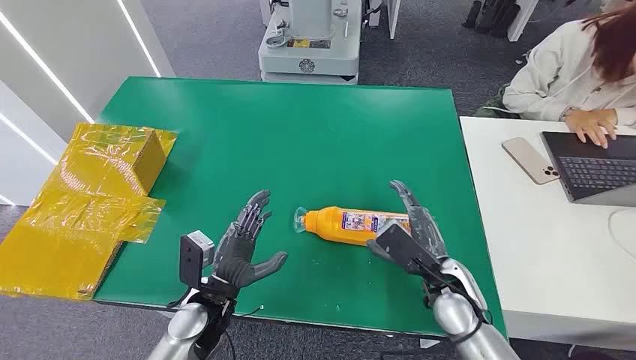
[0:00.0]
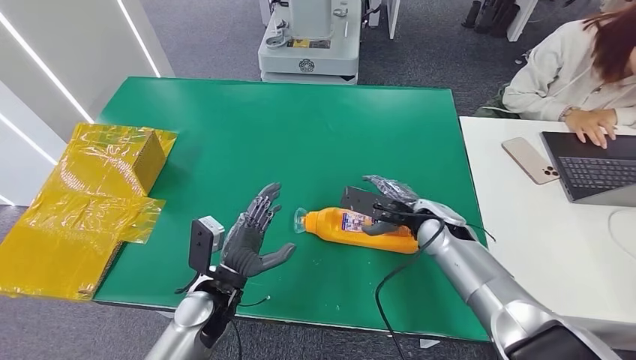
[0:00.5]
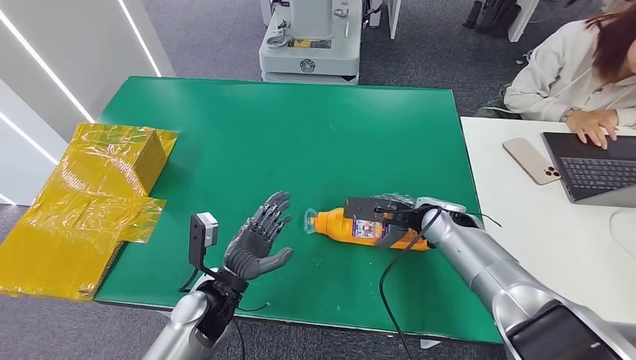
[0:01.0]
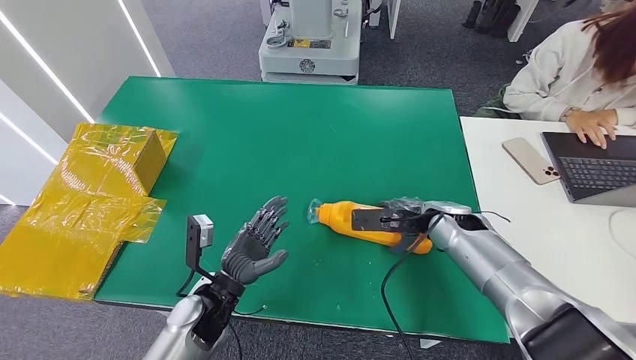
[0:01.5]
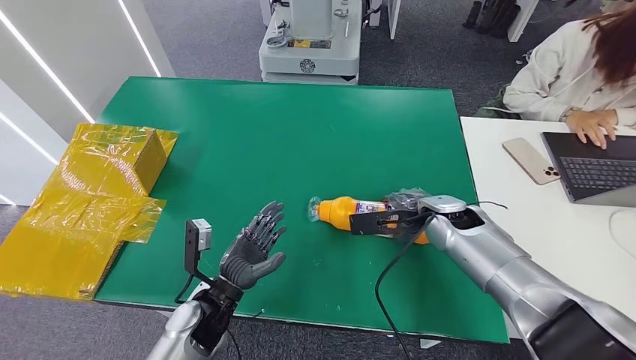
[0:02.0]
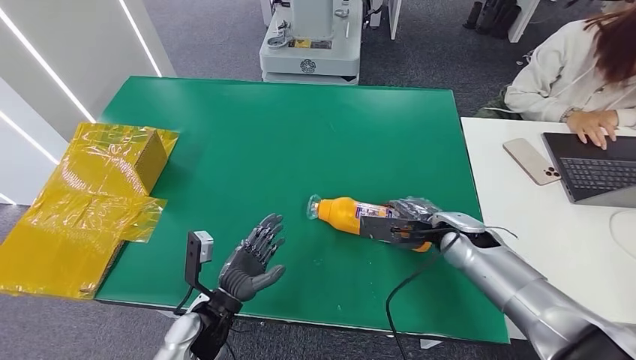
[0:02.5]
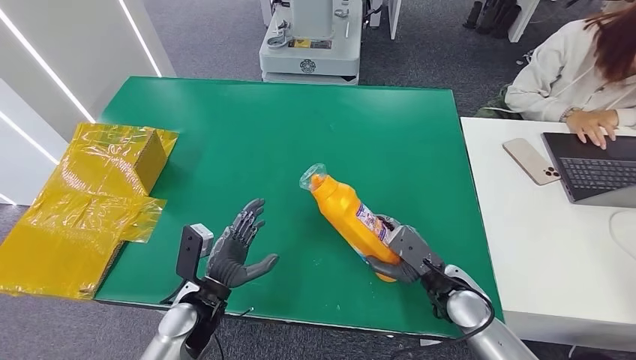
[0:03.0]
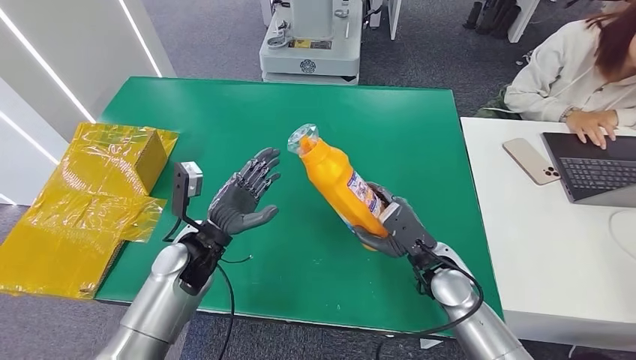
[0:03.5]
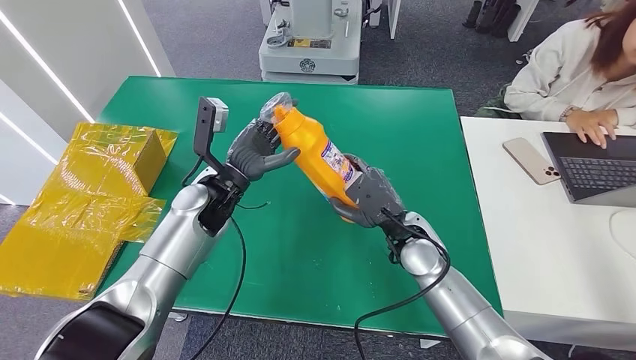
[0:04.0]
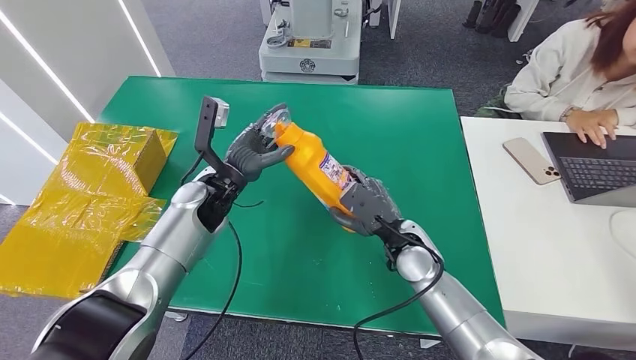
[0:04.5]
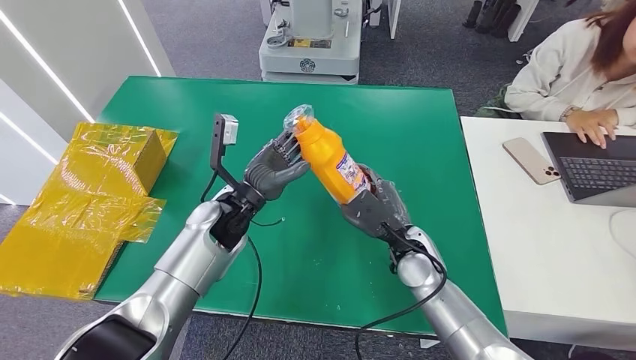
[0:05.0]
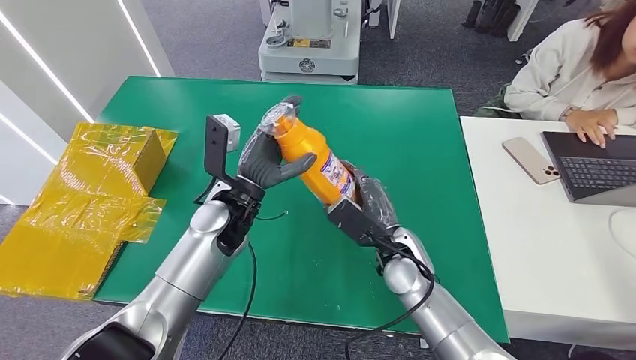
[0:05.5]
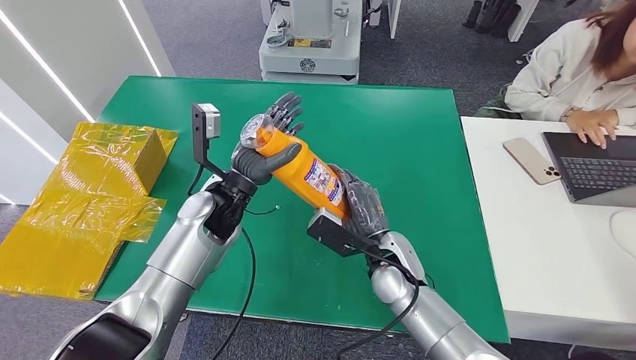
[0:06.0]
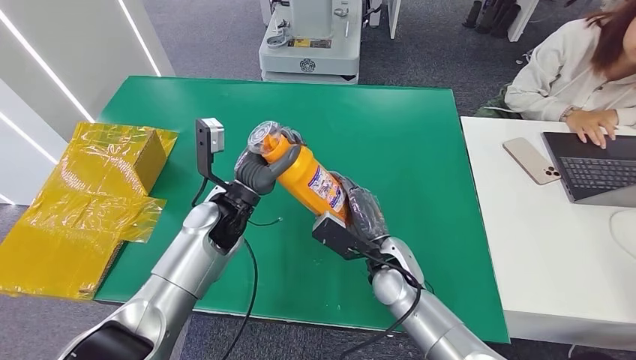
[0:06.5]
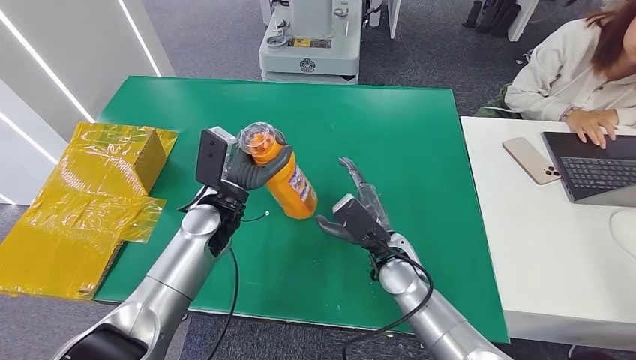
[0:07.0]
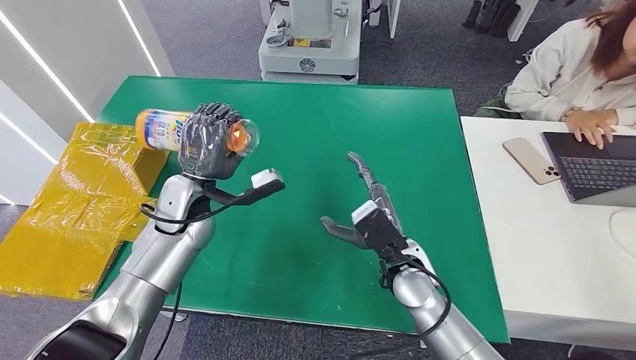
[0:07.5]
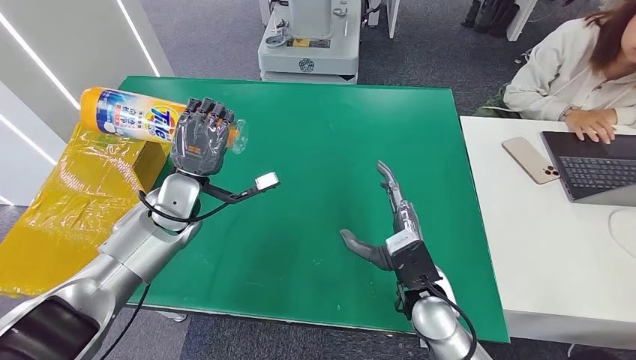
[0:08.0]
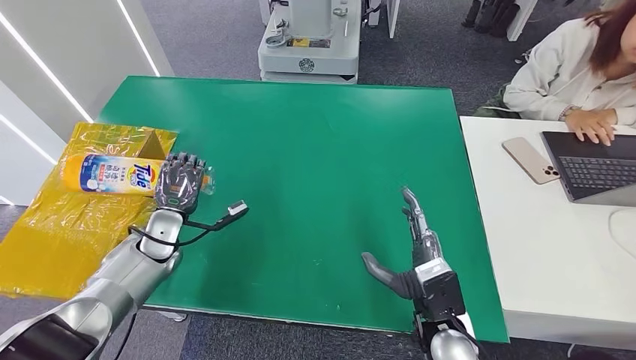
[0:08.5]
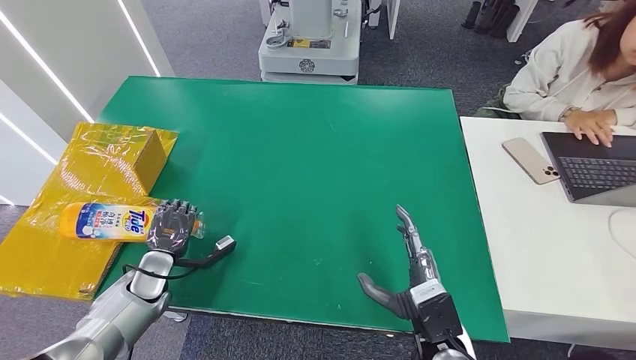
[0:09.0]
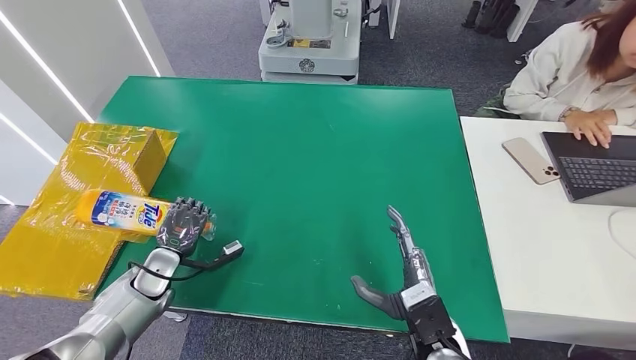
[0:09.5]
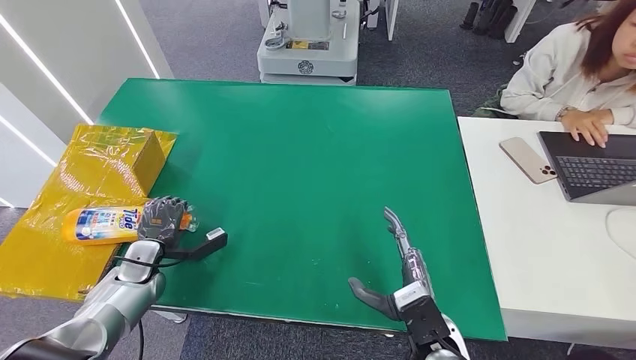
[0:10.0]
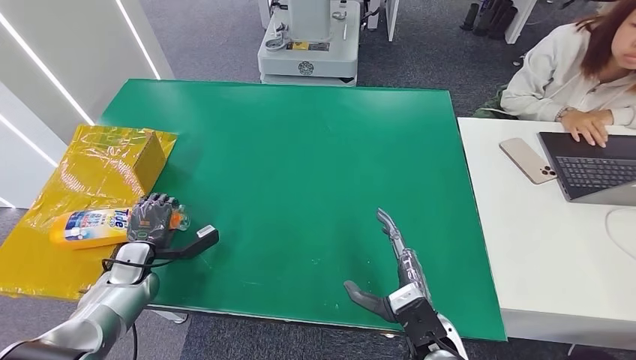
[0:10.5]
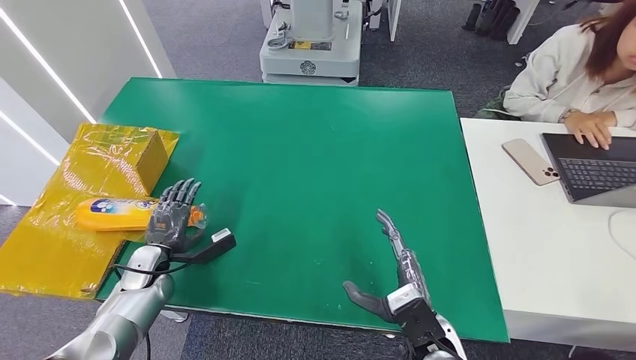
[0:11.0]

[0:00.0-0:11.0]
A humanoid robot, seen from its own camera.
Step, 0:00.0 to 0:04.5: Pick up the bottle from the table.
Step, 0:05.0 to 0:11.0: Turn the bottle to the front side.
0:02.0 to 0:03.5: The right hand travels backward and downward by about 10 cm. The left hand travels forward and upward by roughly 10 cm.
0:03.5 to 0:05.5: The right hand goes about 5 cm to the left; the left hand travels to the right and upward by about 10 cm.
0:05.5 to 0:07.5: The left hand travels to the left by some 10 cm.
0:07.5 to 0:09.0: The left hand heads downward and to the left, covering about 20 cm; the right hand travels backward and to the right by about 10 cm.
